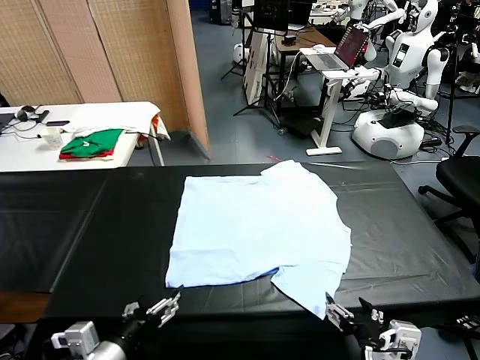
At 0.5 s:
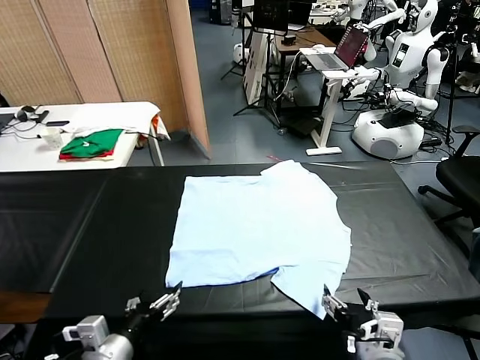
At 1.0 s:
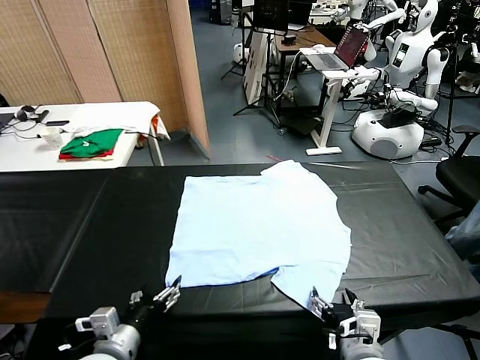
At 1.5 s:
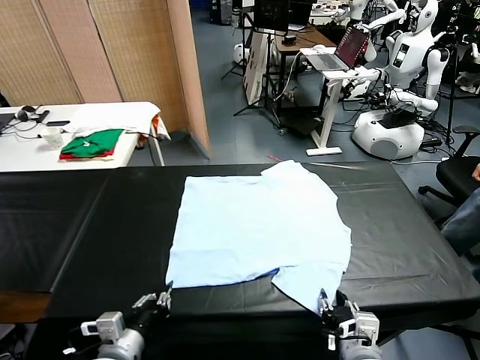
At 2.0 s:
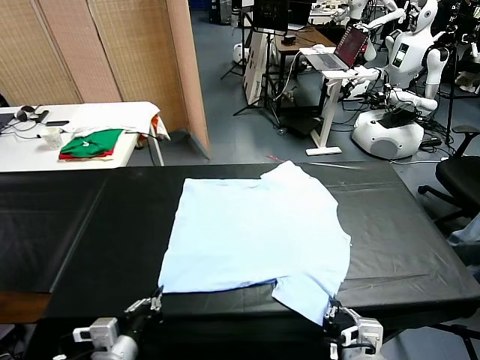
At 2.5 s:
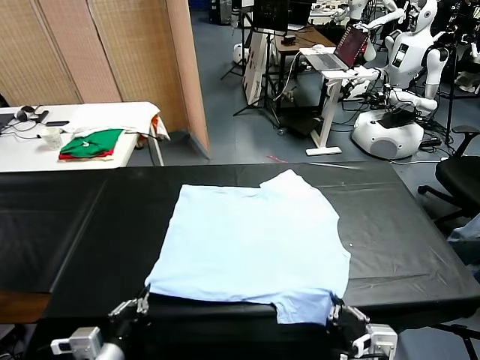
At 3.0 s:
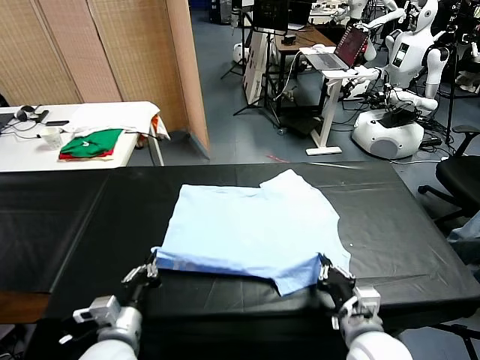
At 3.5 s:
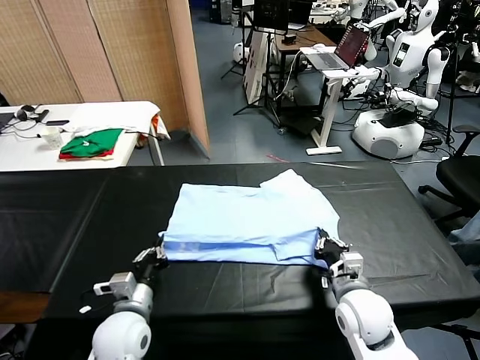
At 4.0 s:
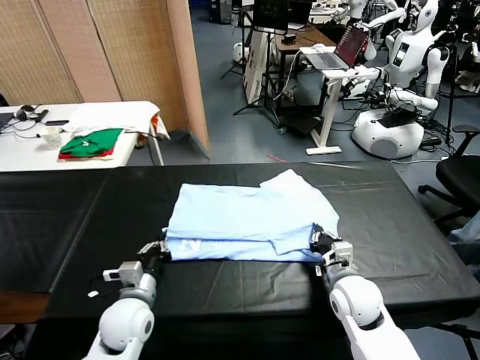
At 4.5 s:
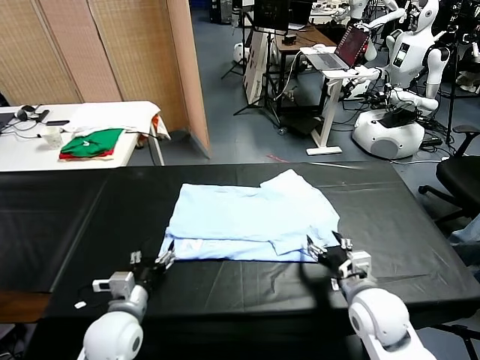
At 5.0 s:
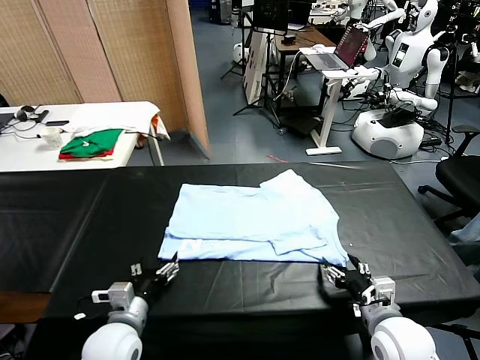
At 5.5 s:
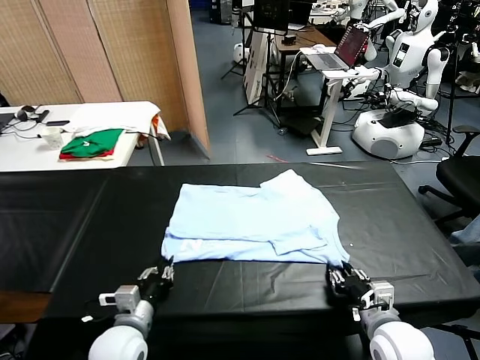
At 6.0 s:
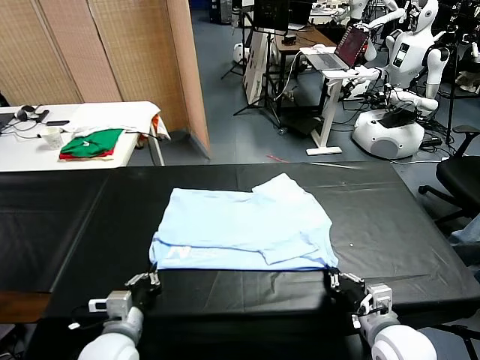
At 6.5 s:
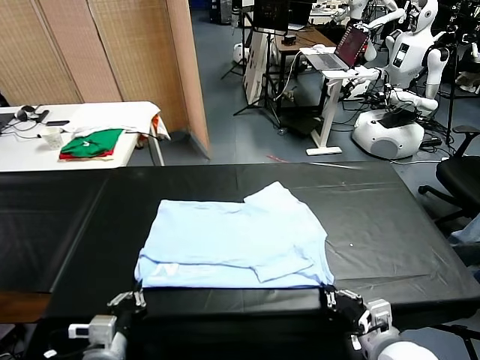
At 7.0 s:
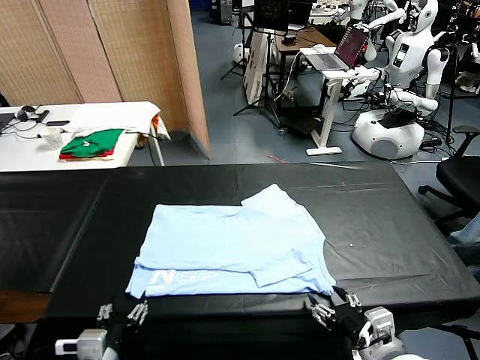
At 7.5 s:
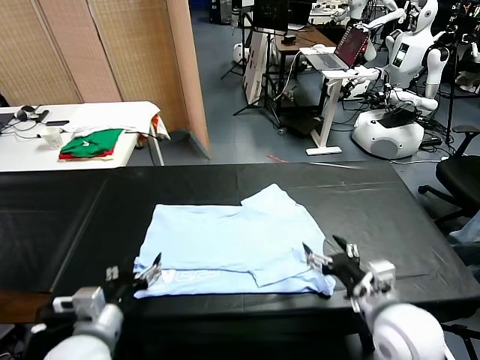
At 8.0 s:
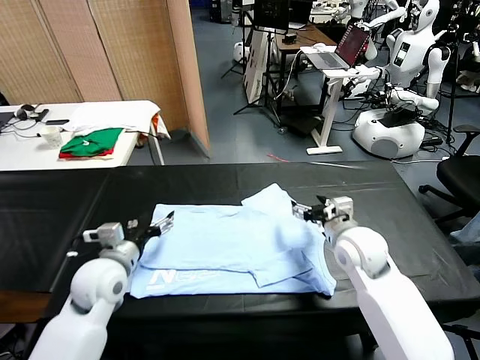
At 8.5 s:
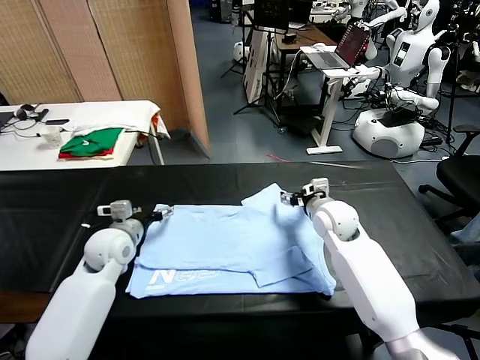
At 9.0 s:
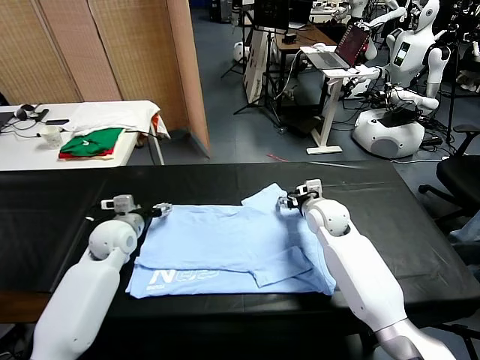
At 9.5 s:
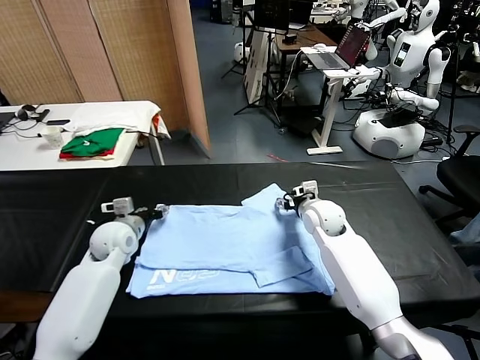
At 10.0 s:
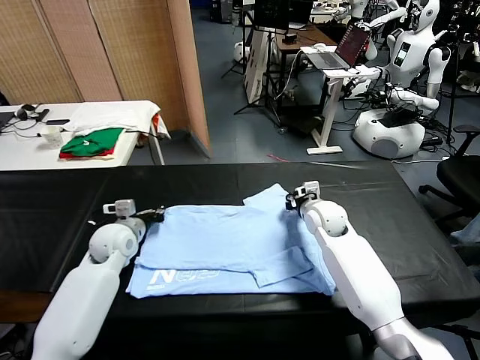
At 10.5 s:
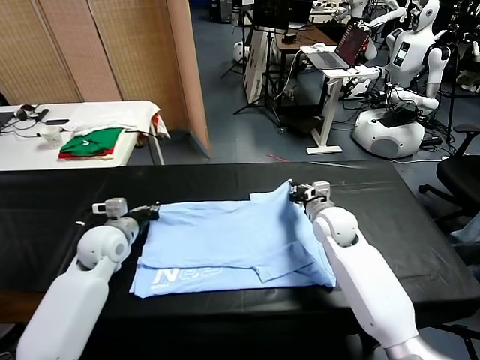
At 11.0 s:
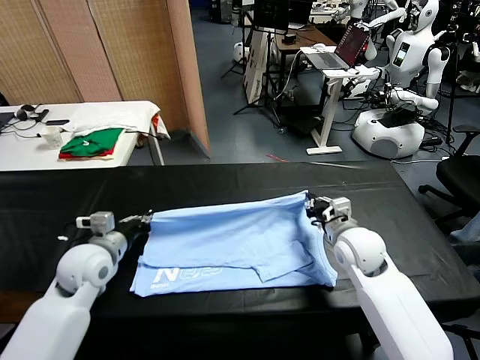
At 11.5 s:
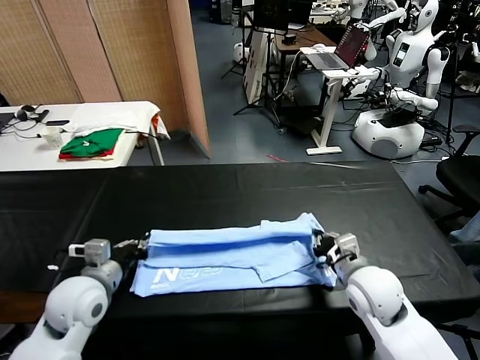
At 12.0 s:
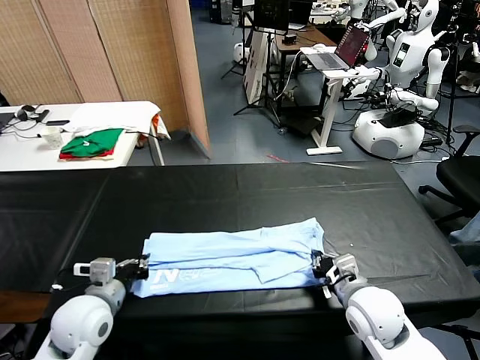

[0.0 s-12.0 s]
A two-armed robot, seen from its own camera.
Task of the whole recording: fold and organize the clothes.
Step, 0.0 to 1.5 s: use both grippers simultaneously to clamp the lower edge of the clothing fabric.
Step, 2.0 to 4.0 s: use both grippers to drag the lower edge of the fabric forward and fold it over the upper edge.
Step, 4.5 to 6.5 s: Drag the clothes downward with both gripper.
Step, 7.5 to 9.5 s: use both grippers simultaneously to clamp the upper edge of the clothing fabric.
2.0 to 4.0 s: Both grippers move forward, approximately 15 cm. The right gripper opens up.
4.0 to 6.0 s: The grippers both shift backward by about 10 cm. The left gripper opens and closes again. Meanwhile the right gripper closes.
6.0 to 8.0 s: The left gripper moves forward and upward, some 15 cm, and opens its fingers. Meanwhile the right gripper travels forward by about 20 cm, and opens.
8.0 to 10.0 s: Both grippers move forward, approximately 10 cm. The left gripper closes its fingers. The right gripper closes.
10.0 to 12.0 s: The grippers both shift backward by some 20 cm.

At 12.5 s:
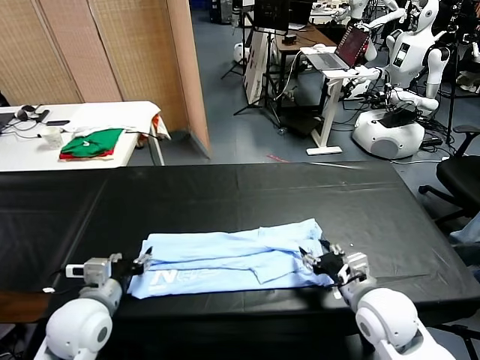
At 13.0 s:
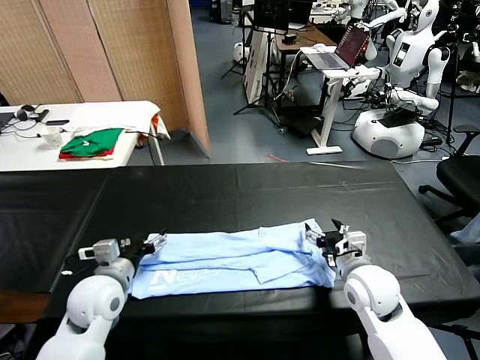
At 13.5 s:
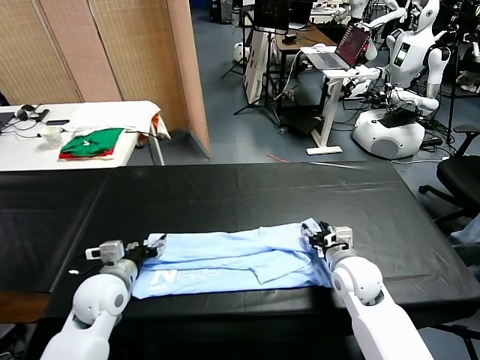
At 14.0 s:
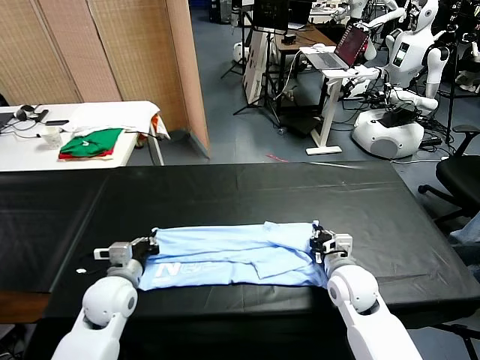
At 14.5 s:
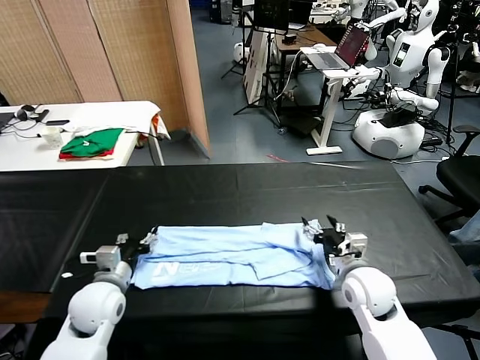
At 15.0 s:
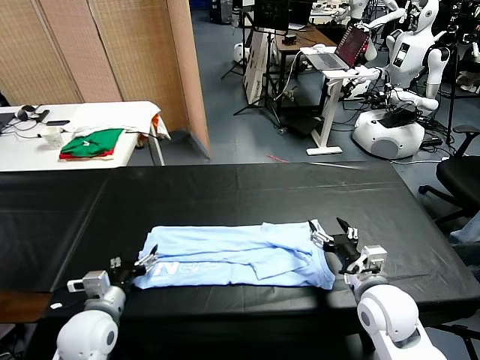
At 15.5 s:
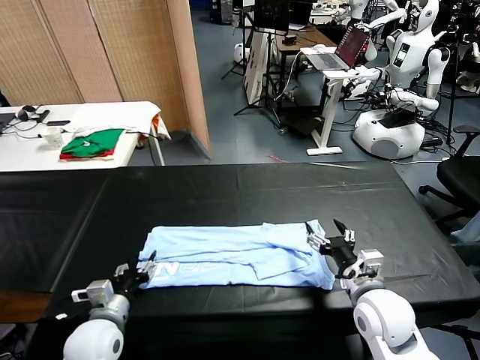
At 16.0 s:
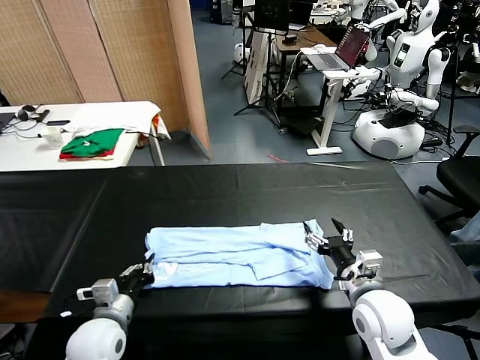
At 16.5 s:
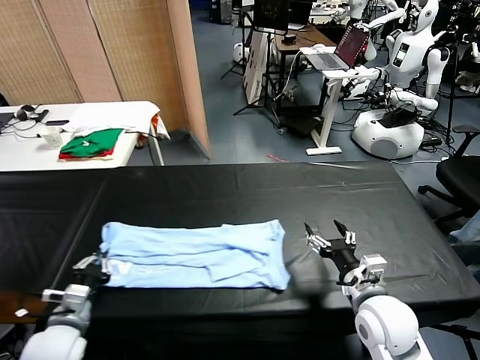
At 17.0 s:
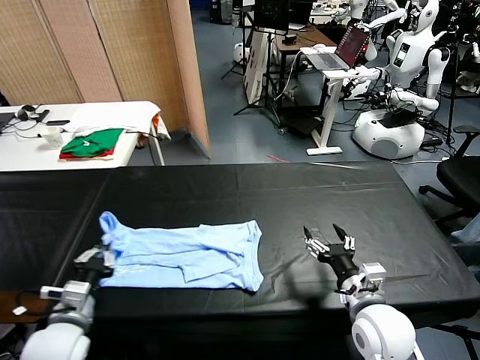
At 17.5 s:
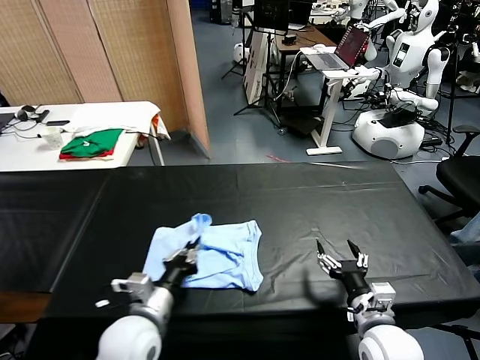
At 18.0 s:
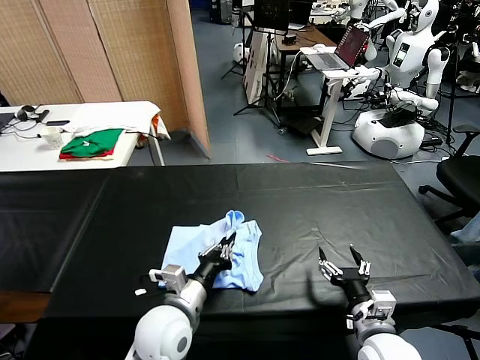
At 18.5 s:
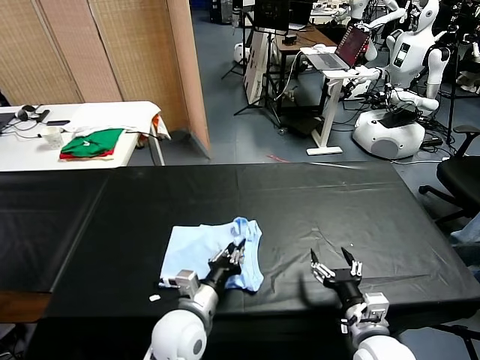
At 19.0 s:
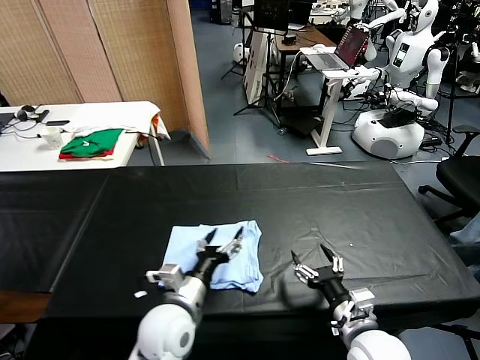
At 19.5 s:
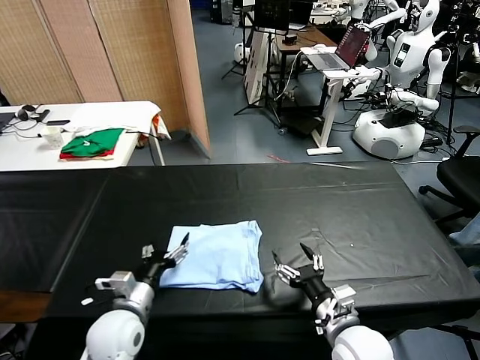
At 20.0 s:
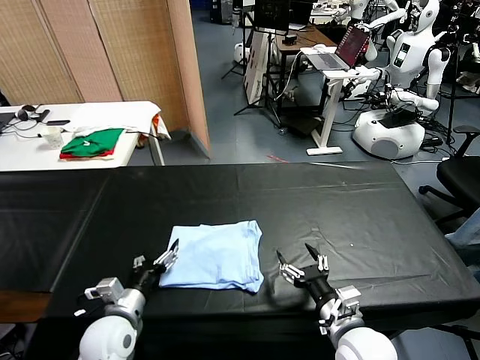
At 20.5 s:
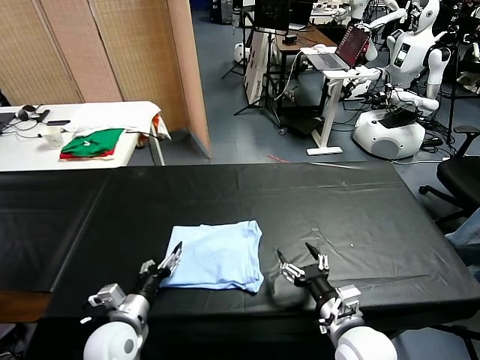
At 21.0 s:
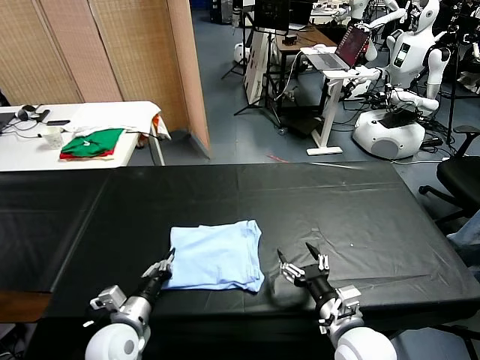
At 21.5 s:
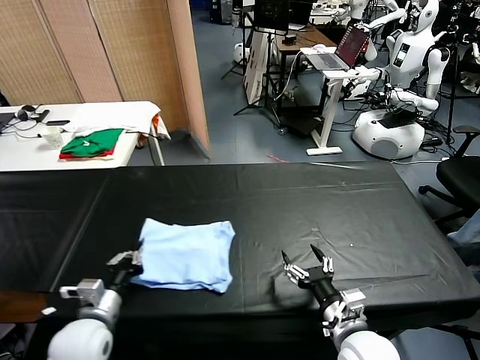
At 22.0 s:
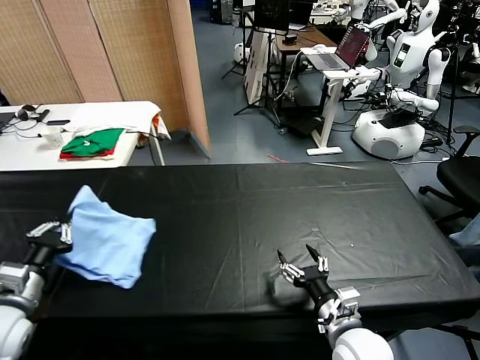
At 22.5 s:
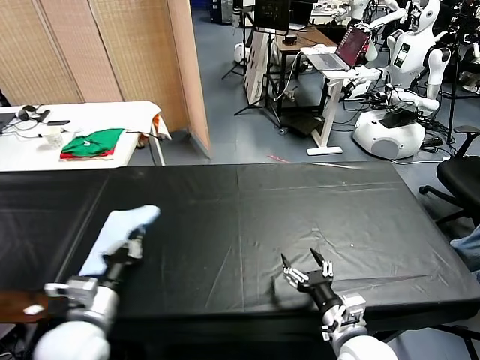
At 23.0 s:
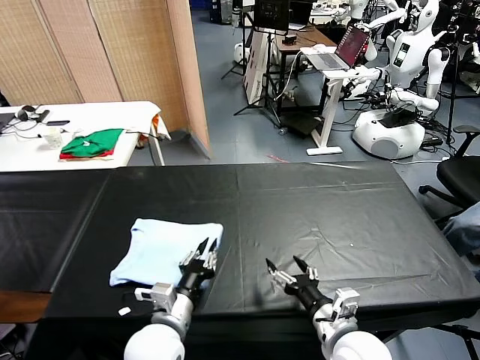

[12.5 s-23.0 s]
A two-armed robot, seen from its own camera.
Task of the whole recording: fold and organize the clothes.
Step, 12.5 to 15.5 s: use the left gripper to clamp the left edge of the fabric.
Step, 16.0 to 18.5 s: use the left gripper to drag the left edge of the fabric to the left and folds it over the right edge.
Step, 19.0 to 23.0 s: Flip the folded clothes over with left gripper.
12.5 to 14.5 s: The right gripper closes and opens again, while the left gripper travels downward and forward by about 10 cm, and closes and opens again.
14.5 to 16.5 s: Both grippers move backward, approximately 5 cm. The left gripper closes up.
16.5 to 19.0 s: The left gripper travels to the right by about 20 cm, and opens. Meanwhile the right gripper moves roughly 5 cm.
19.0 to 21.0 s: The left gripper moves to the left and downward, some 15 cm, and closes up.
21.0 to 23.0 s: The left gripper moves to the right and upward, roughly 10 cm.

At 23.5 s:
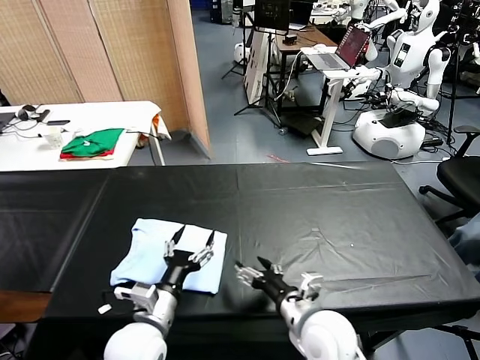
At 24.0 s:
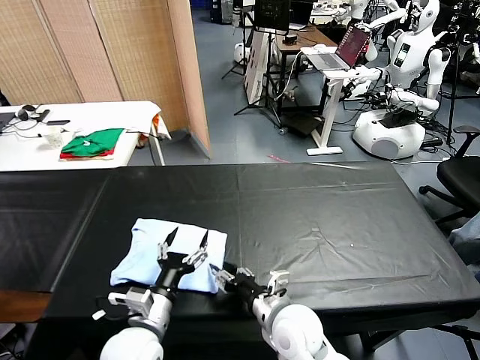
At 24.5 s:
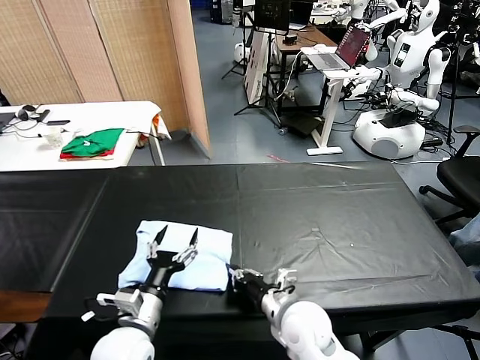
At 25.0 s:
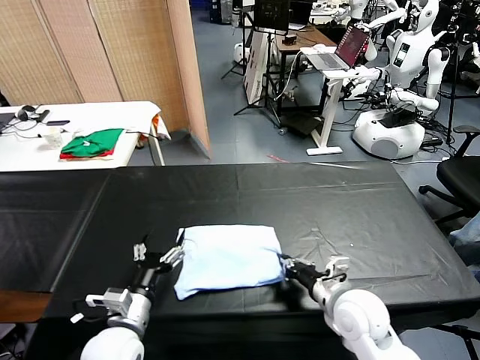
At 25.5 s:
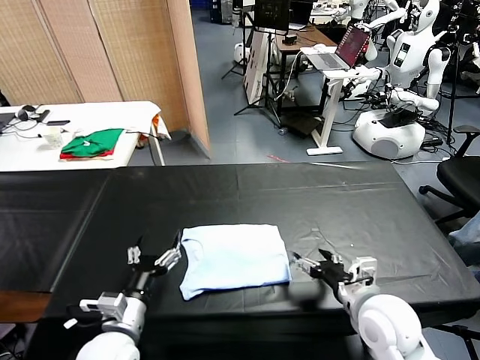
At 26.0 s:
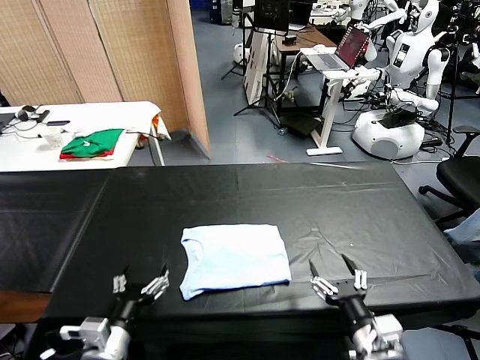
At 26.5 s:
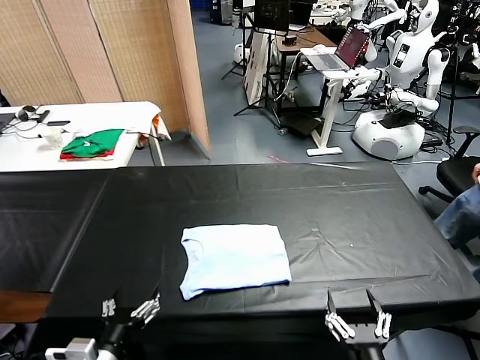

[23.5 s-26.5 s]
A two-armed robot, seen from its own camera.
Task of the whole recording: fold and organize the clothes.
Step, 23.5 to 25.0 s: Drag the clothes to the center of the table.
23.5 to 25.0 s: The right gripper moves to the right, roughly 5 cm, and closes its fingers.
25.0 to 26.5 s: The left gripper heads backward, covering roughly 10 cm. Meanwhile the right gripper moves backward, some 20 cm, and opens.
